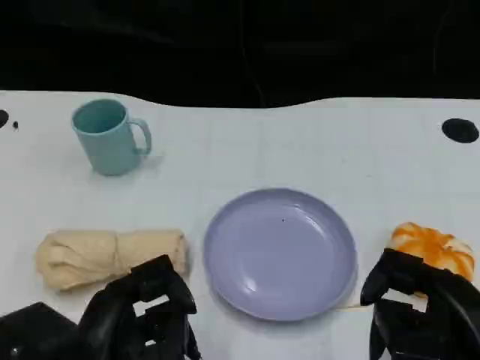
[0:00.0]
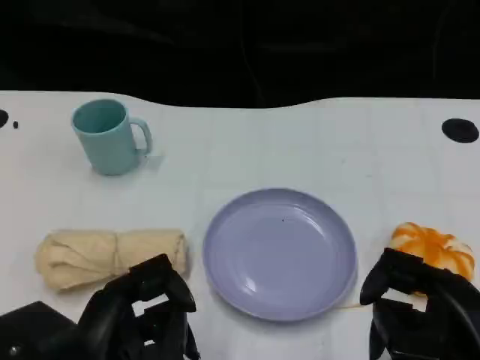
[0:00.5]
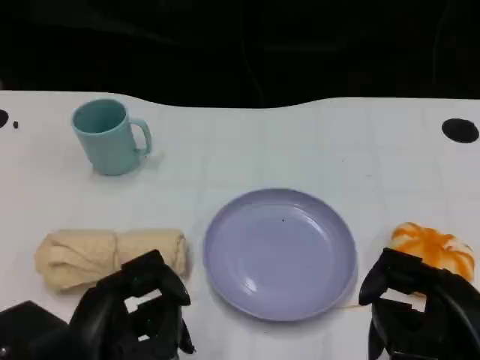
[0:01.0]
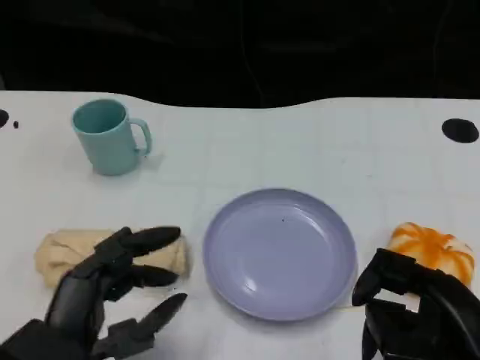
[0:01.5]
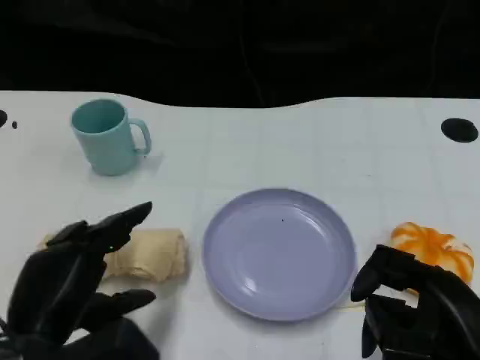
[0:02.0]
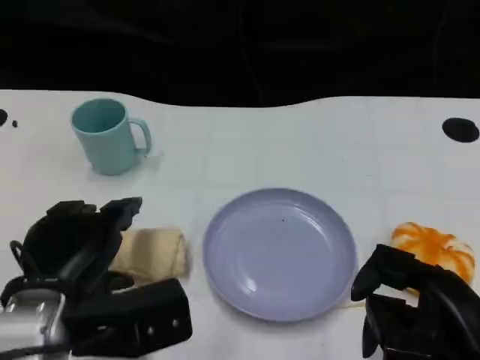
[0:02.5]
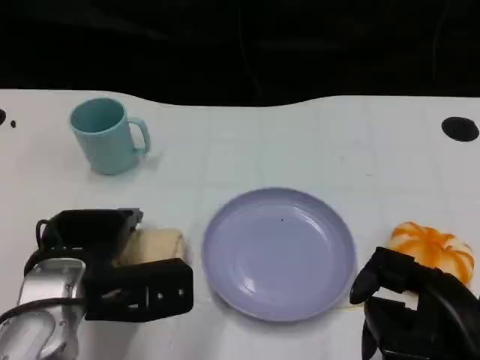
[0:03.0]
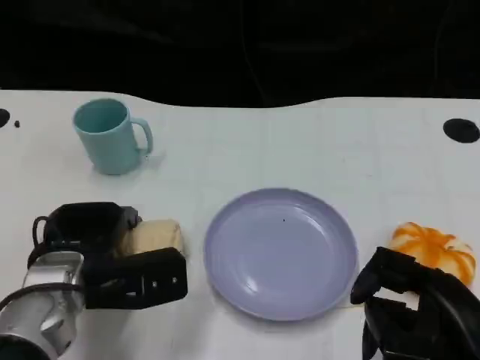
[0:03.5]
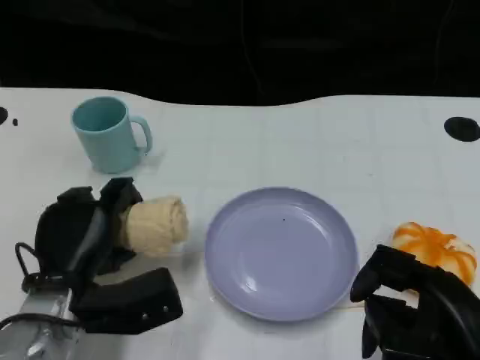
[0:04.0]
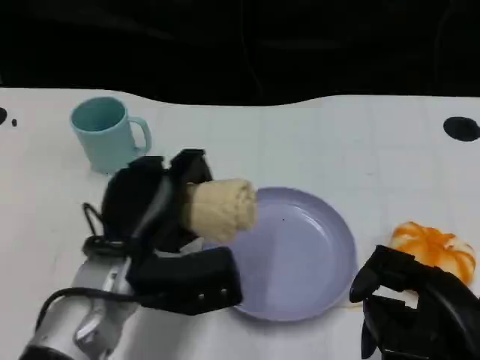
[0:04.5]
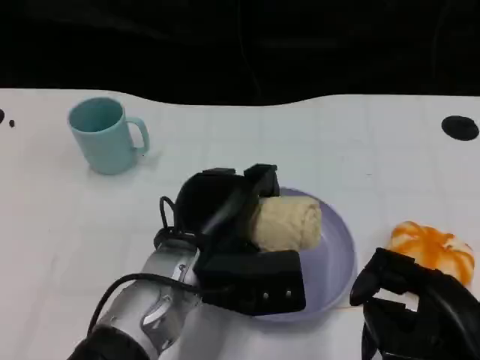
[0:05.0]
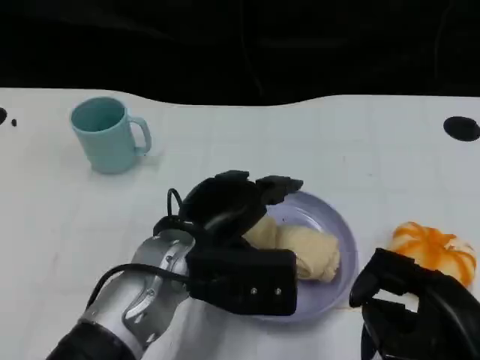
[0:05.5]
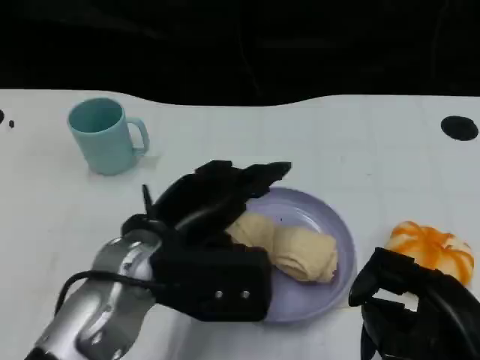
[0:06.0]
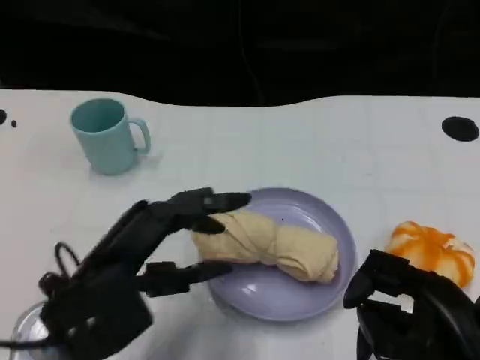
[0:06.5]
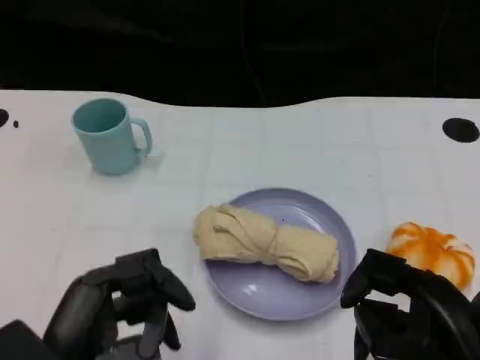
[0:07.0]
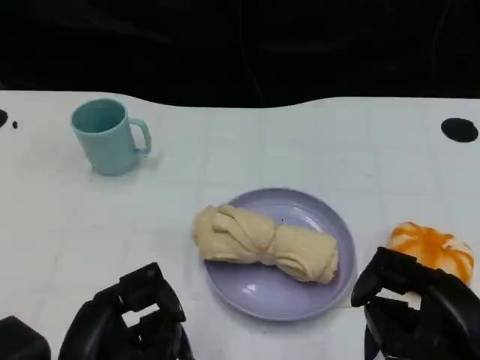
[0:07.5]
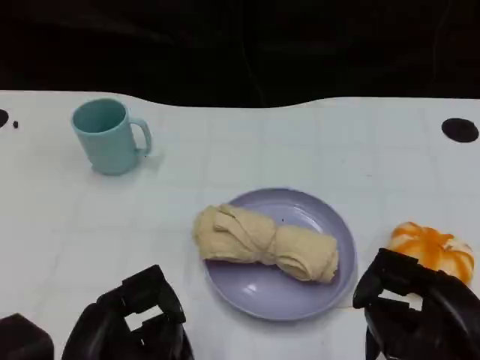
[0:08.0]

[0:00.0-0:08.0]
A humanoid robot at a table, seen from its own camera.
Task of the whole recording: Grasp the towel on the left side of the plate with the left hand and place it into the plate.
0:00.0 to 0:02.0: The left hand changes place by about 5 cm.
0:02.0 to 0:04.0: The left hand is displaced forward and downward by roughly 10 cm.
0:04.0 to 0:06.0: The left hand heads upward and to the right, covering roughly 10 cm.
0:06.0 to 0:08.0: The left hand moves backward and to the left, some 15 cm.

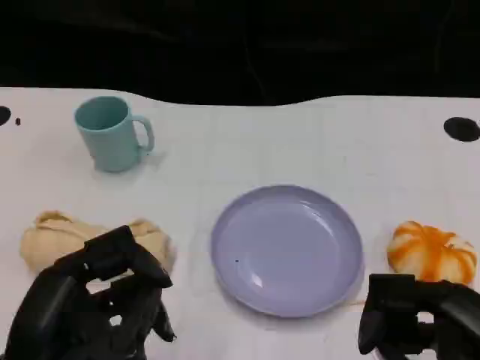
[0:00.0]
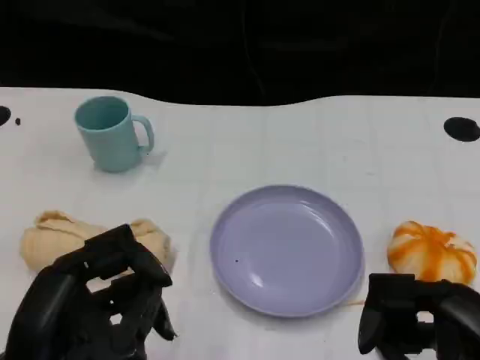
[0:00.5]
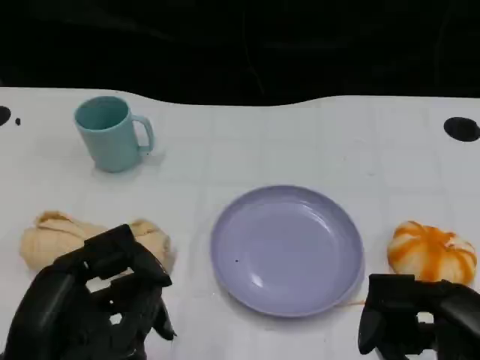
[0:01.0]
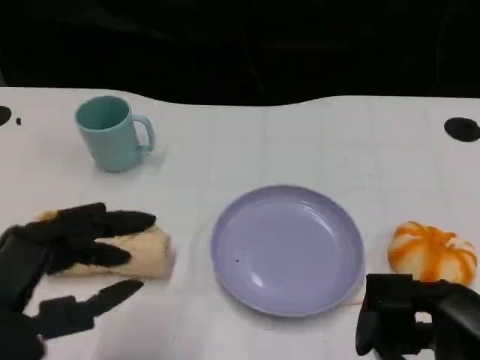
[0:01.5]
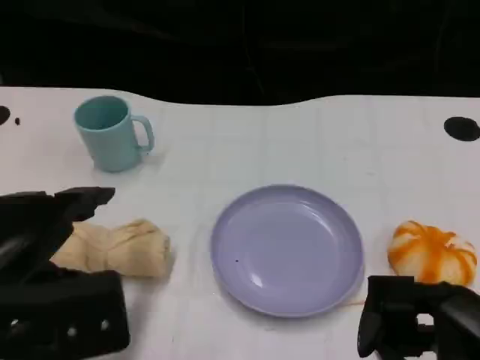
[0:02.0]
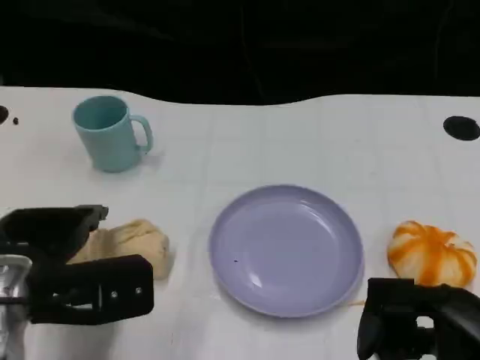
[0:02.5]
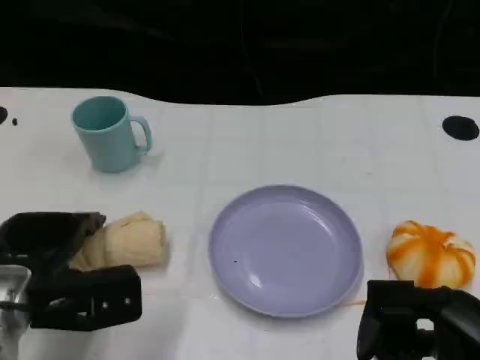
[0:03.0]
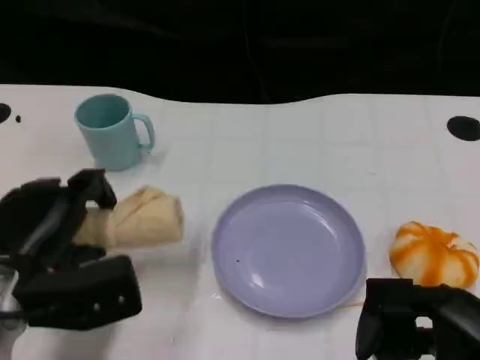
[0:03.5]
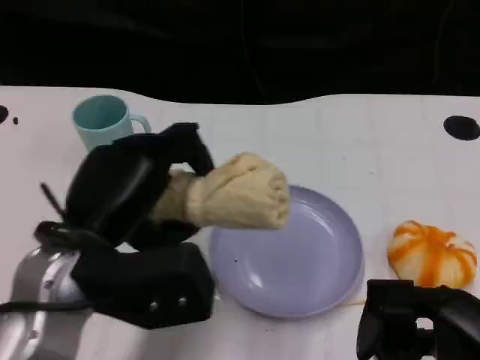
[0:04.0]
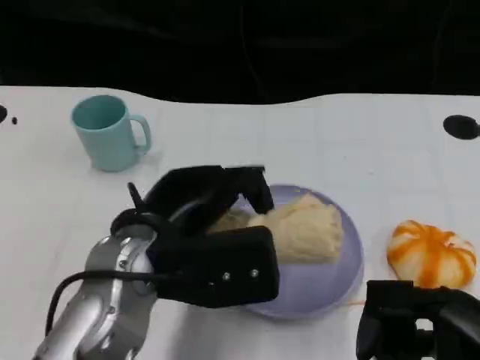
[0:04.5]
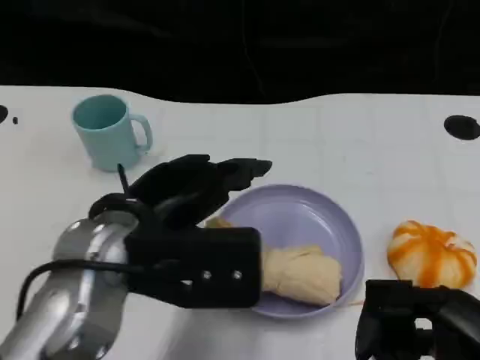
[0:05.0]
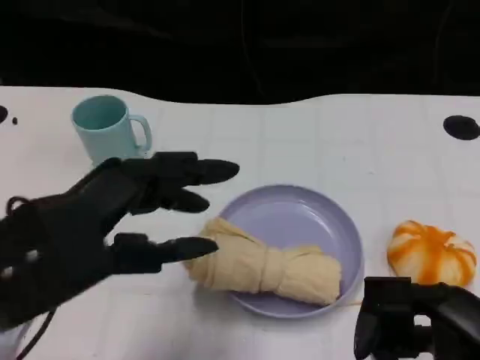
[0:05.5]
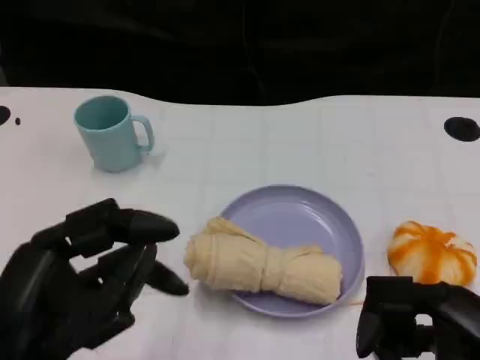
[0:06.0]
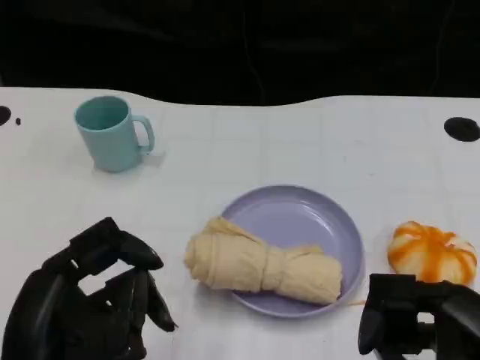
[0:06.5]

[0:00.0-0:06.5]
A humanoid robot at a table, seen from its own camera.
Task of the whole recording: Grasp the towel on the left side of the plate with the left hand and place it into the plate.
0:00.0 to 0:02.0: The left hand shifts about 5 cm forward.
0:02.0 to 0:04.5: The left hand travels to the right and forward by about 15 cm.
0:04.5 to 0:06.5: The left hand heads backward and to the left, covering approximately 15 cm.
